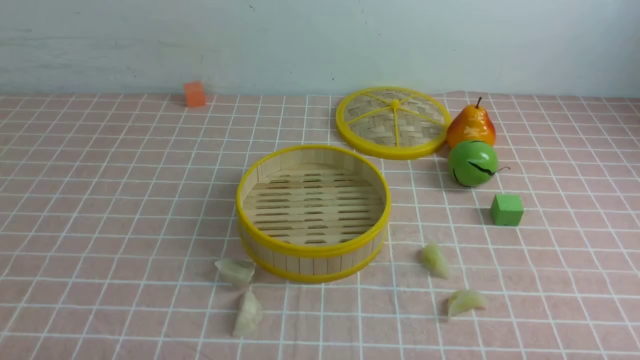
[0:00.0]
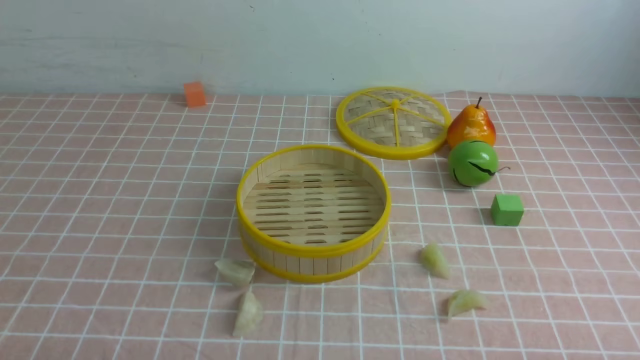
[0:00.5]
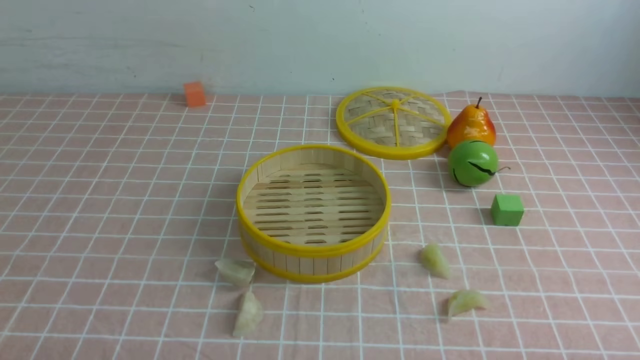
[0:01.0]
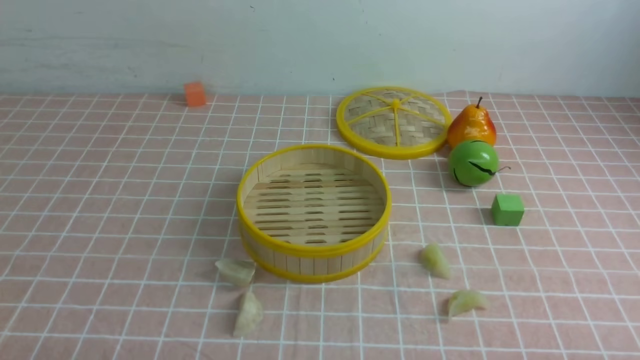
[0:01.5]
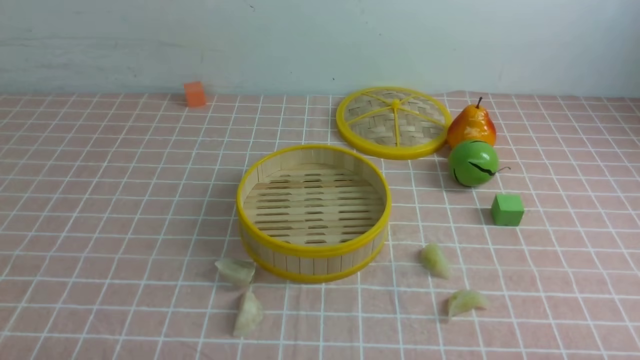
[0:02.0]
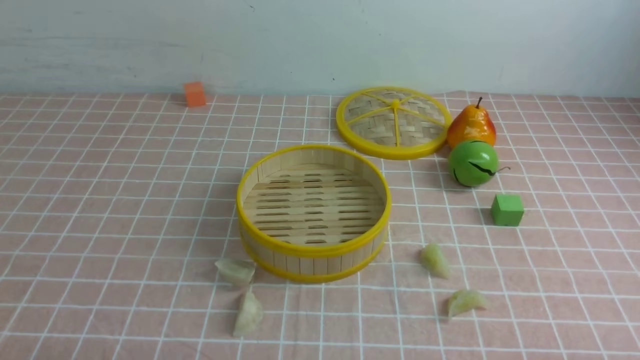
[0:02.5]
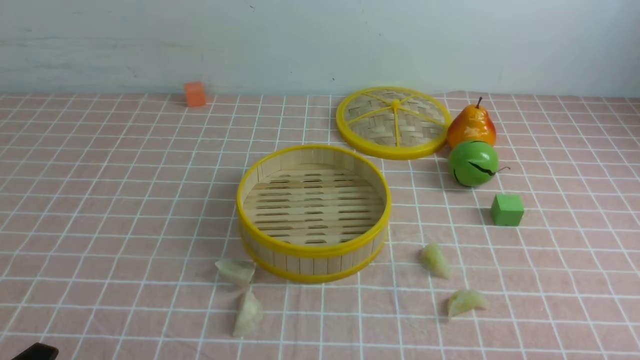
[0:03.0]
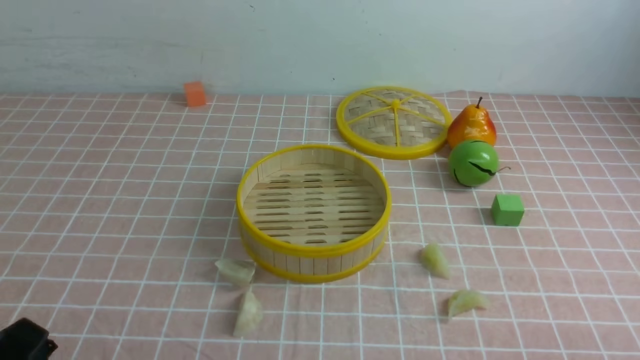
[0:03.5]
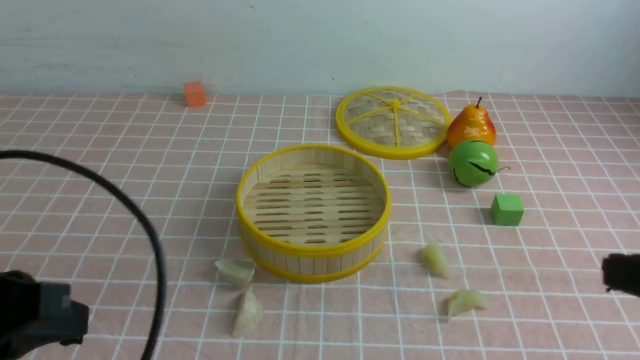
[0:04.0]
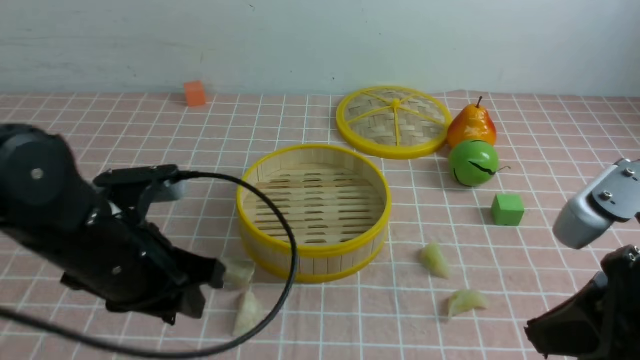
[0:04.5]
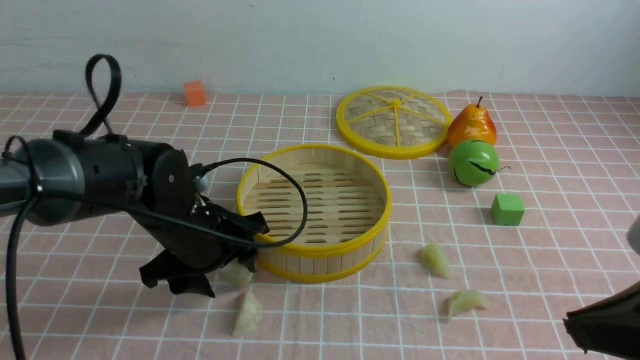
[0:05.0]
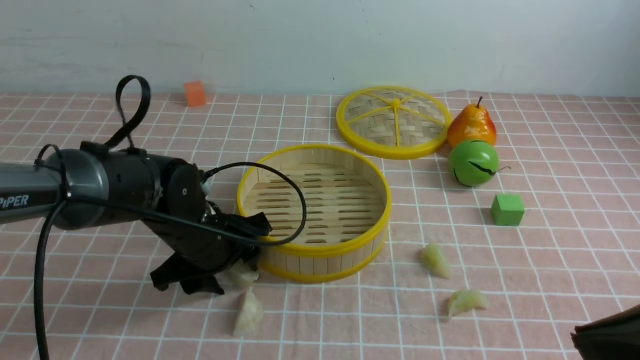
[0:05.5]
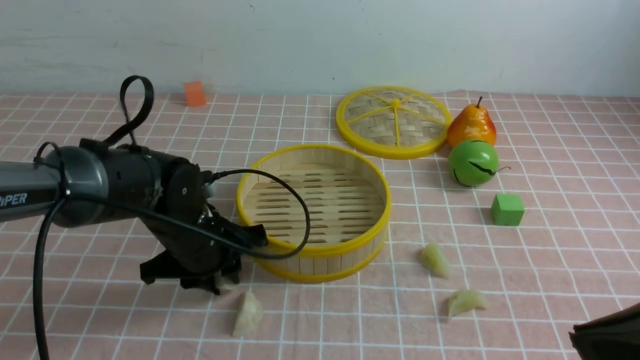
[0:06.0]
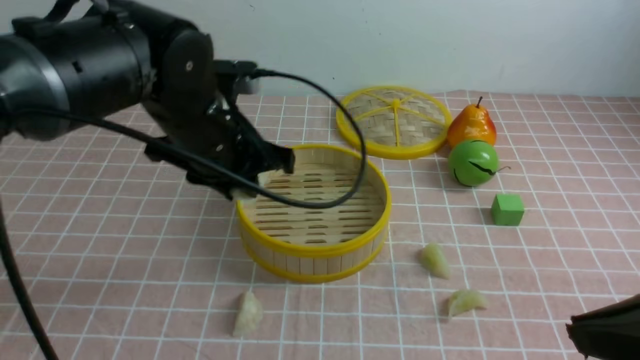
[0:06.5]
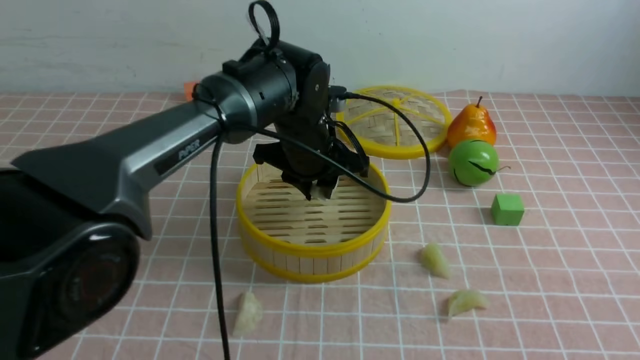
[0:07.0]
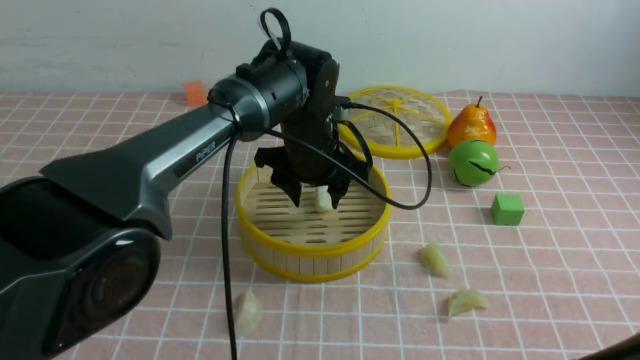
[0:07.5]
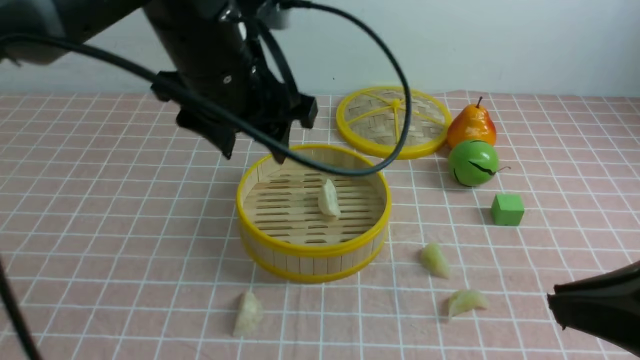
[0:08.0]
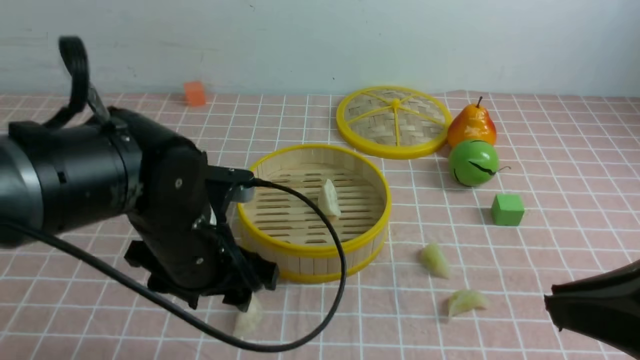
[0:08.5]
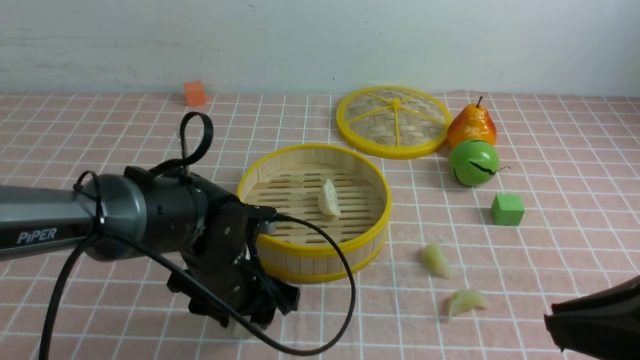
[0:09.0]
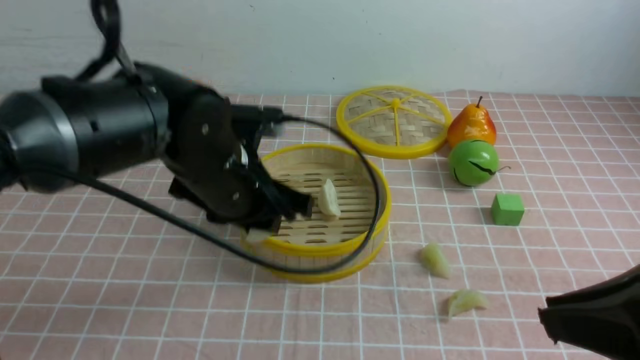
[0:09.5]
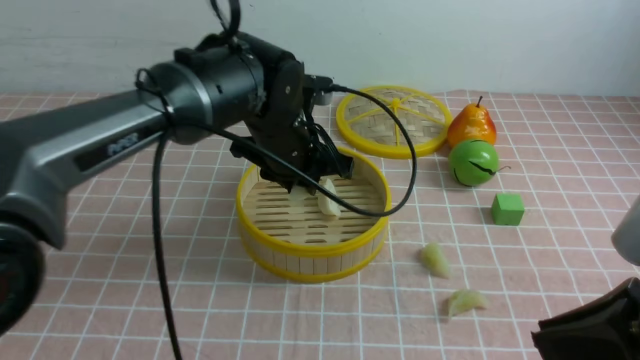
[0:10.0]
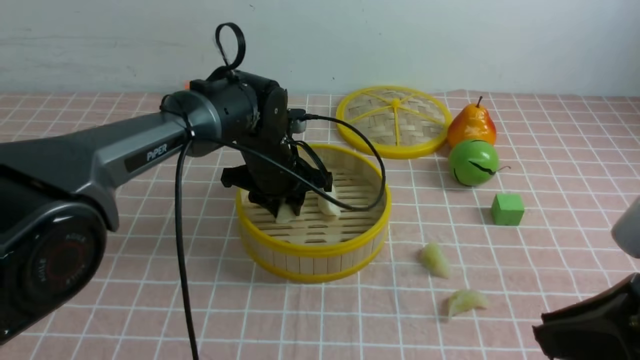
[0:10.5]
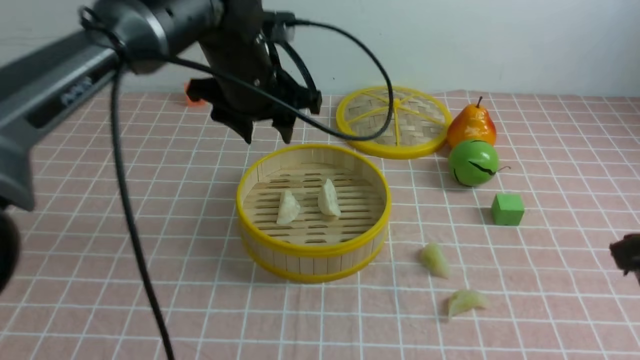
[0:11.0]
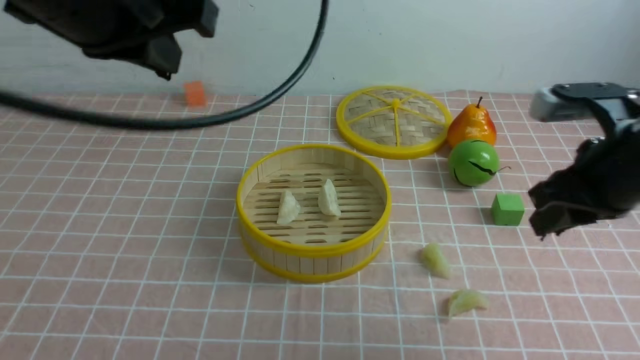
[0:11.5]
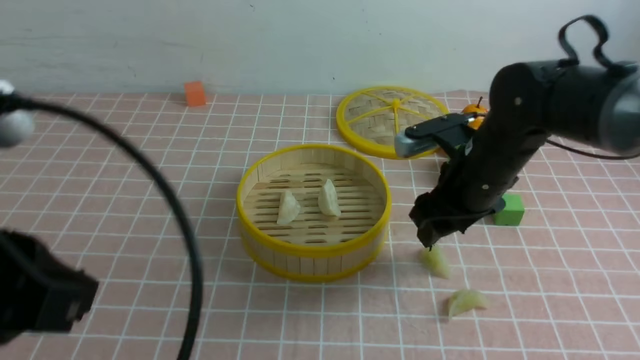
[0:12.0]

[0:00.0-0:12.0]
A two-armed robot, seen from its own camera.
Task of the whole recording: put the dumplings into the steamer on the table with the pink tablecloth.
Step, 0:00.0 to 0:06.0: use the left arm to grab a dumpling.
Step, 0:06.5 to 0:07.5: use the left arm to put the dumpling into the steamer.
Step, 0:08.0 to 0:09.0: use the left arm to grab a dumpling.
Step, 0:09.5 to 0:10.5: use the left arm to put the dumpling into the steamer.
0:02.0 to 0:04.0: The grippers both shift upward and forward by some 15 cm. The right gripper closes up. Meanwhile the left gripper closes its fingers.
0:04.0 to 0:06.0: The left gripper heads forward, downward and to the right, covering approximately 30 cm, and opens, while the right gripper shifts by some 5 cm.
0:06.0 to 0:08.0: The left gripper travels upward by some 20 cm, and opens.
0:08.0 to 0:10.0: The left gripper moves downward, about 10 cm, and closes up.
0:10.0 to 0:12.0: The left gripper goes about 30 cm backward, to the left and upward, and closes. The right gripper is displaced forward by about 25 cm, and opens up.

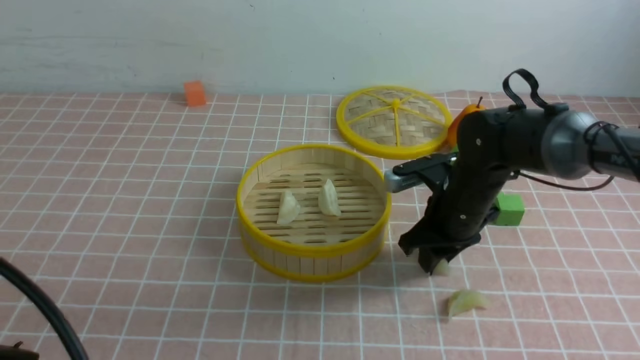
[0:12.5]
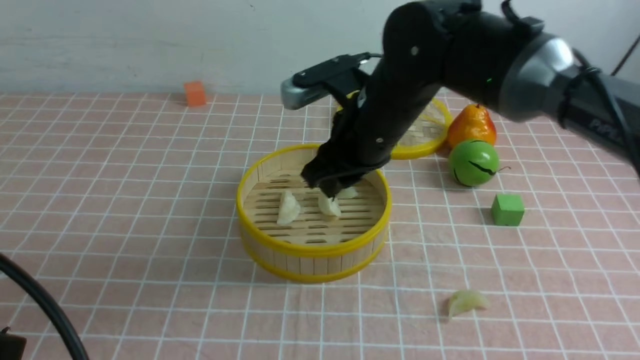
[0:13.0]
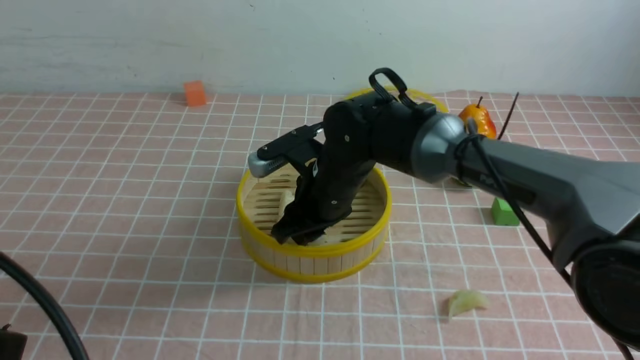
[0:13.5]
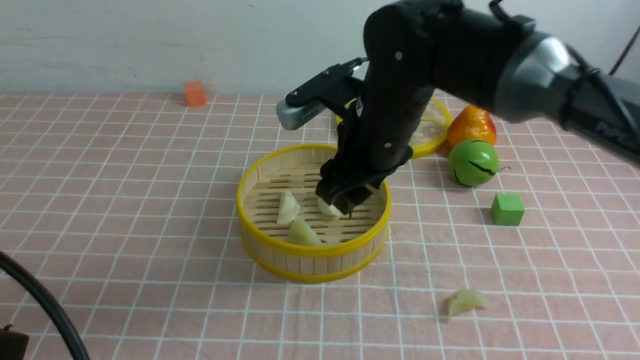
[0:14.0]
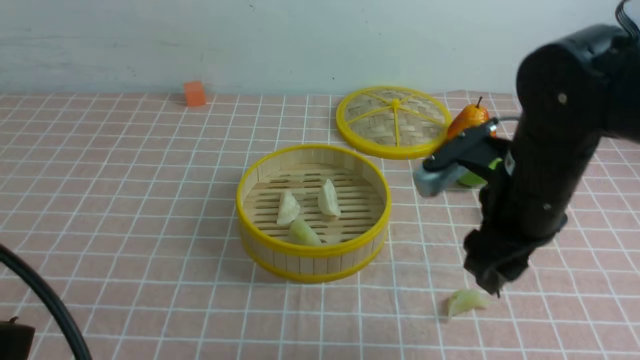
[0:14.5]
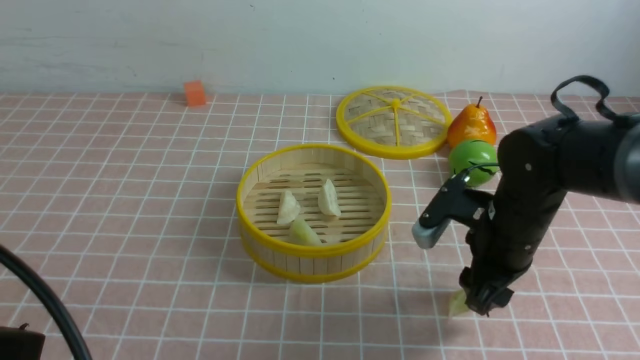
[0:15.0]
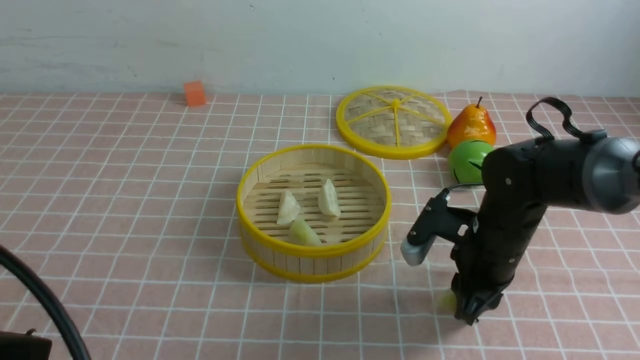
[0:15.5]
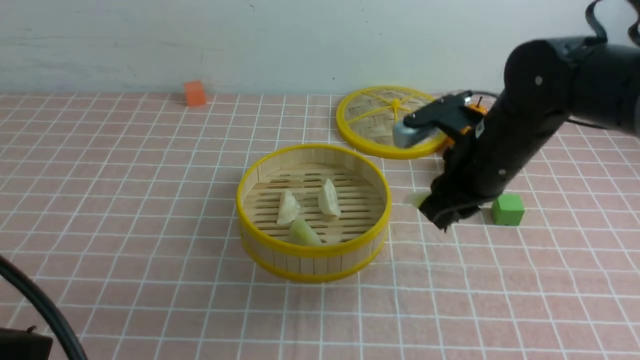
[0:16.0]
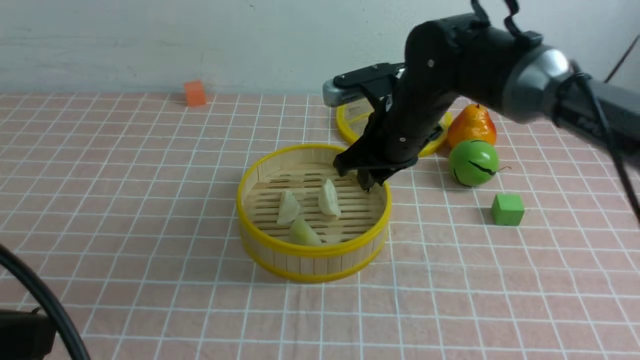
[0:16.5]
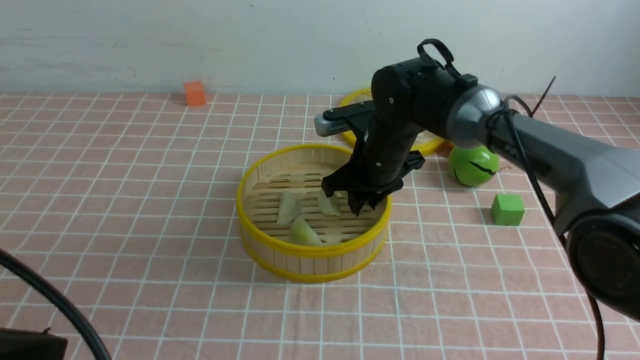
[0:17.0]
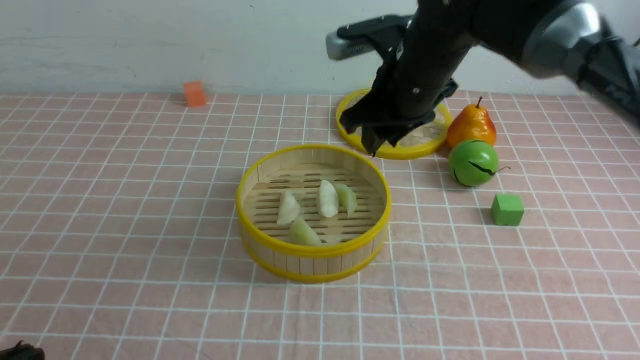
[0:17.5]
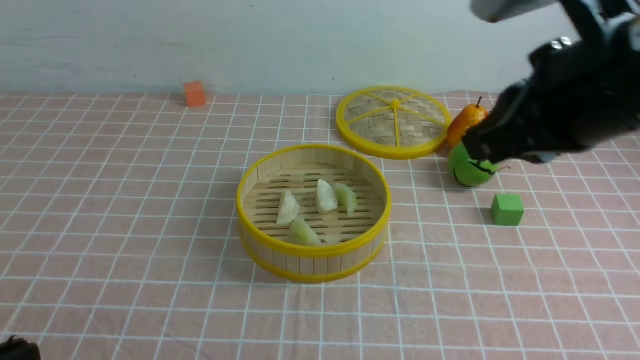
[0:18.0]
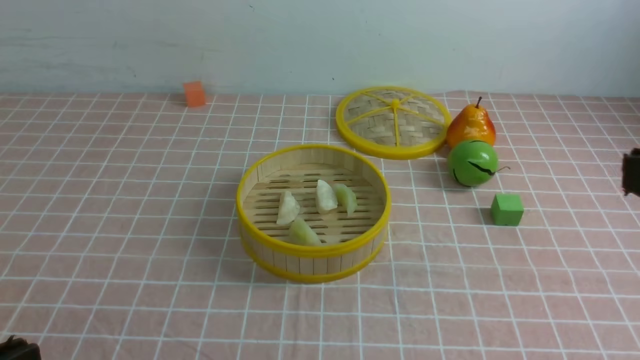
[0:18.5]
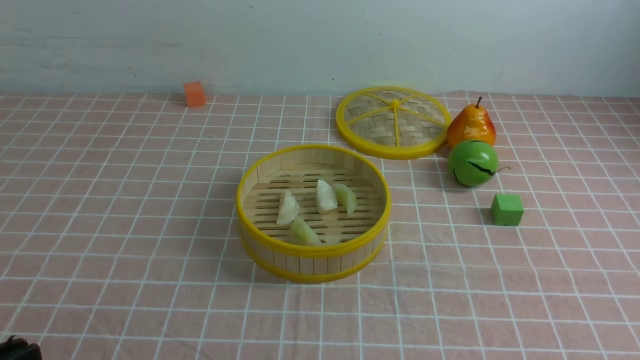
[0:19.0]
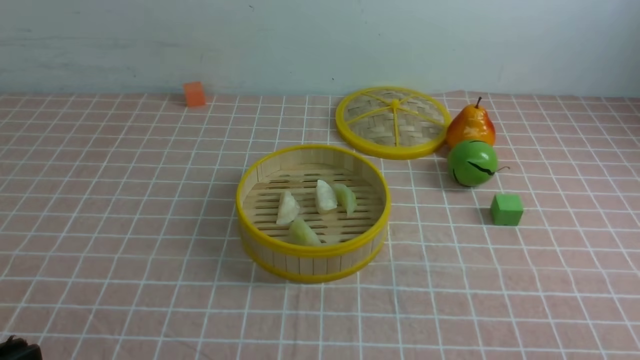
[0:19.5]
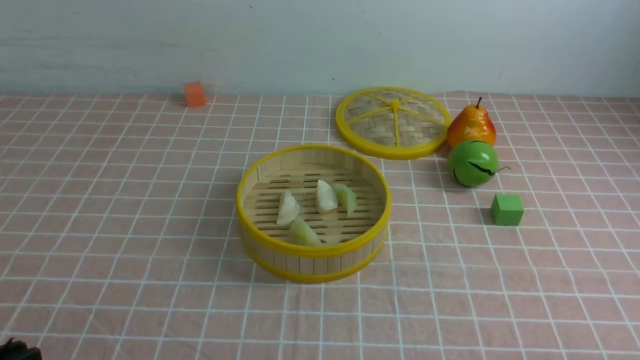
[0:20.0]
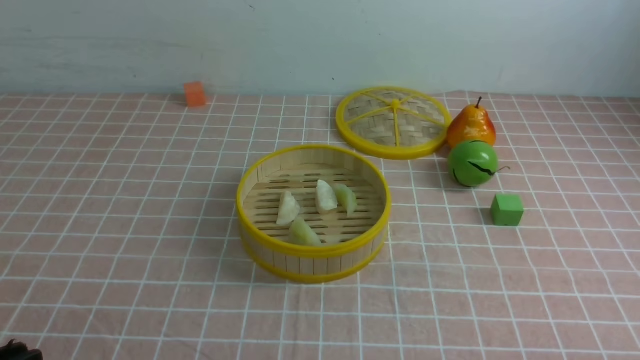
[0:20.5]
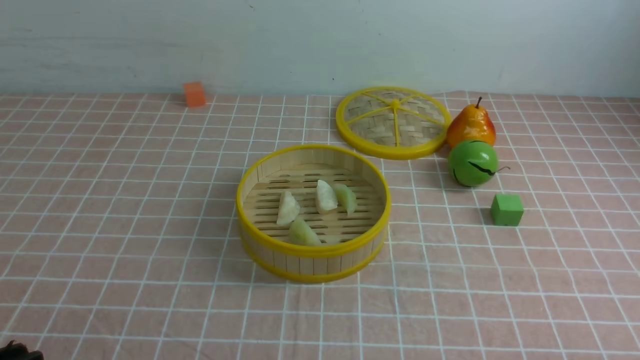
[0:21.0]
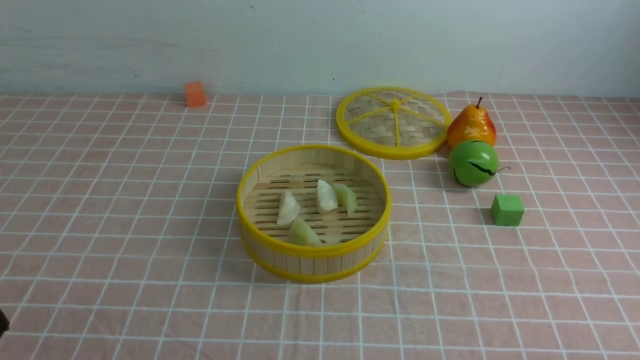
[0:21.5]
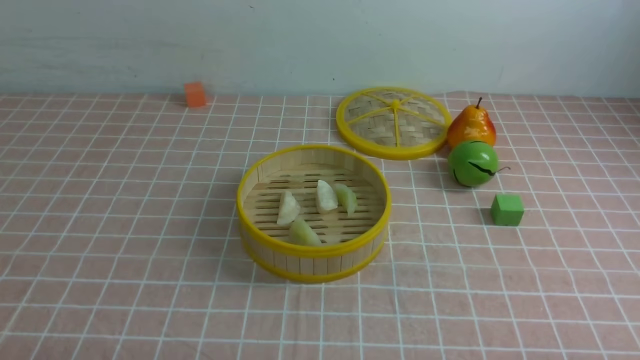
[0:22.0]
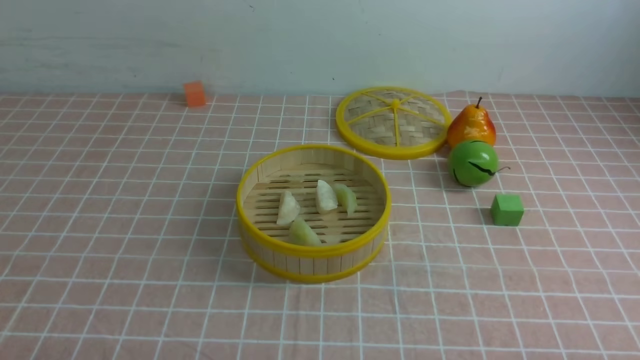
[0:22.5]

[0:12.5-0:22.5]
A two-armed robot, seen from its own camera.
Task of the whole recording: put the dumplings into the steamer on the table with the pink tablecloth.
Step, 0:13.0 to 0:13.5: use the right arm to put the dumpling into the steamer.
Step, 0:14.0 to 0:15.5: use the right arm to grab a dumpling.
Step, 0:16.0 to 0:17.0: use the right arm to put the dumpling into the steamer.
0:12.5 to 0:14.5: The right gripper shifts some 15 cm upward and backward, and reaches roughly 15 cm to the left, then returns.
0:14.5 to 0:16.5: The right gripper travels forward by roughly 10 cm, travels downward and back again, approximately 15 cm each way, and closes.
0:16.5 to 0:18.5: The left gripper moves downward, approximately 5 cm, while the right gripper travels backward, to the right and upward by approximately 35 cm, and closes.
